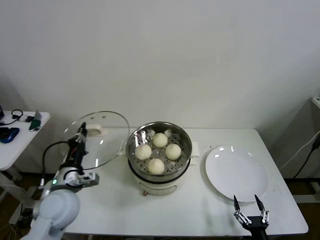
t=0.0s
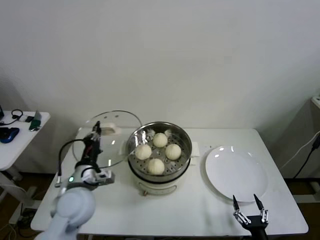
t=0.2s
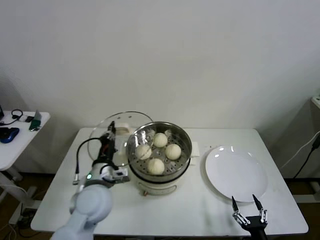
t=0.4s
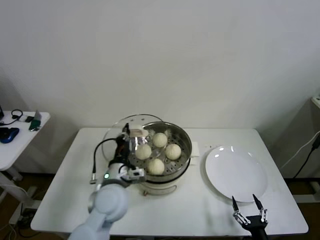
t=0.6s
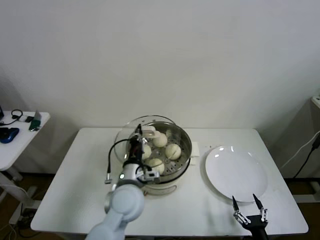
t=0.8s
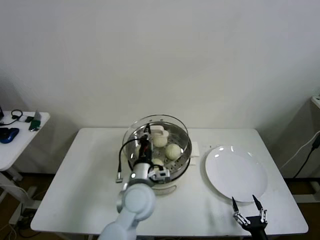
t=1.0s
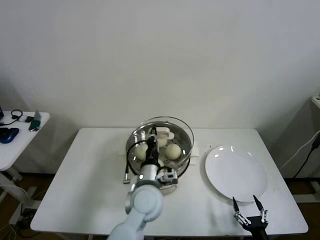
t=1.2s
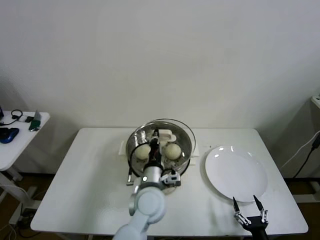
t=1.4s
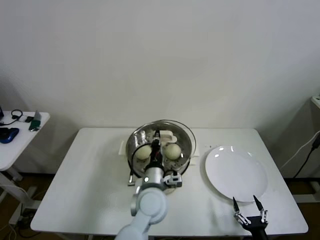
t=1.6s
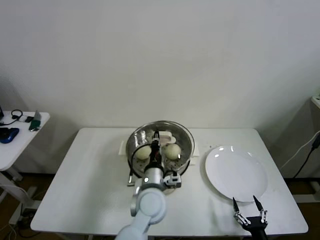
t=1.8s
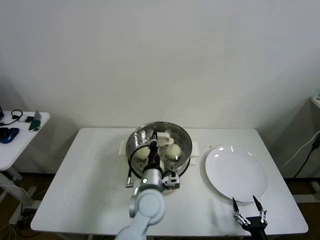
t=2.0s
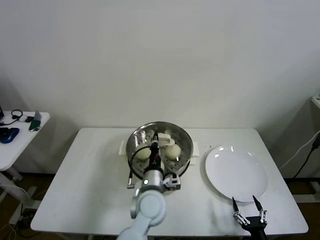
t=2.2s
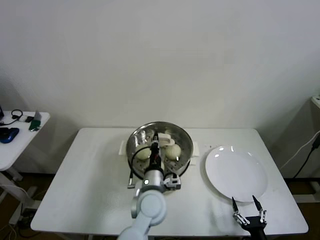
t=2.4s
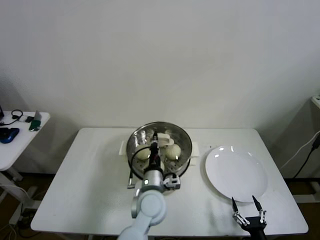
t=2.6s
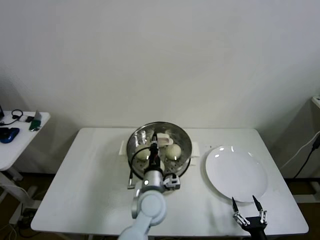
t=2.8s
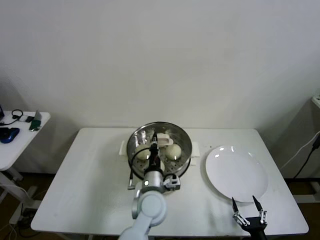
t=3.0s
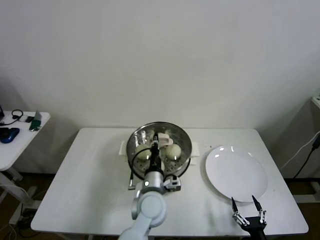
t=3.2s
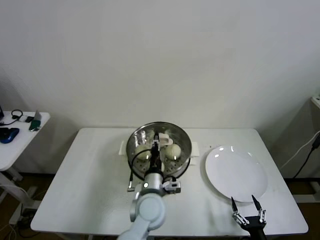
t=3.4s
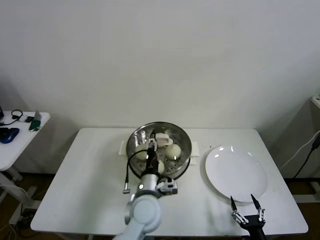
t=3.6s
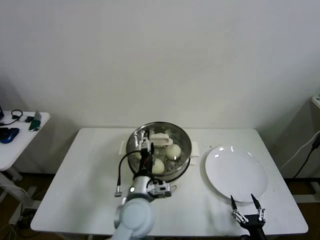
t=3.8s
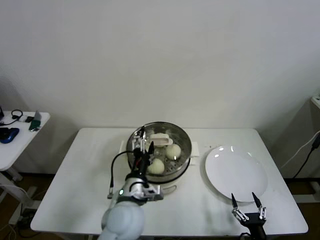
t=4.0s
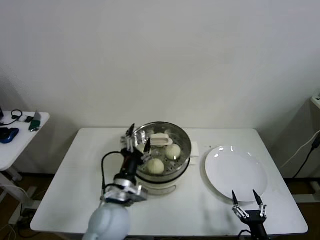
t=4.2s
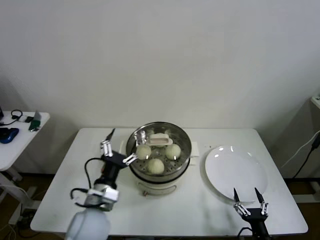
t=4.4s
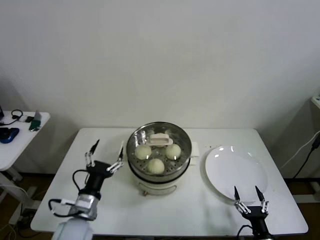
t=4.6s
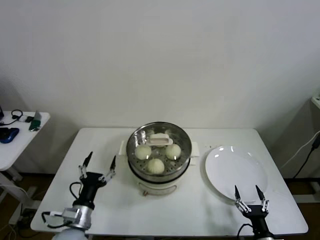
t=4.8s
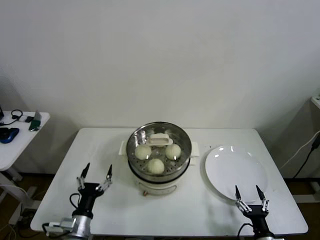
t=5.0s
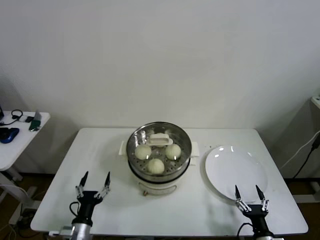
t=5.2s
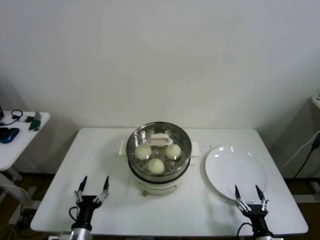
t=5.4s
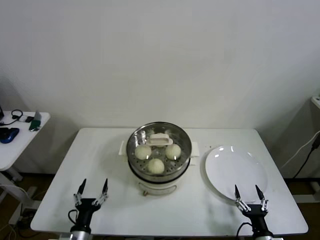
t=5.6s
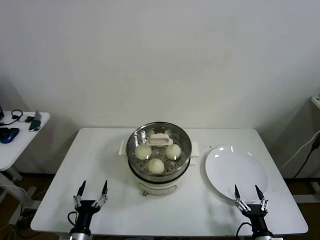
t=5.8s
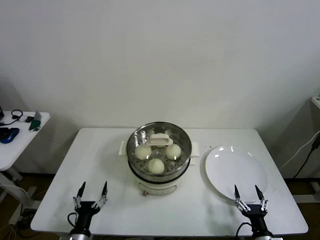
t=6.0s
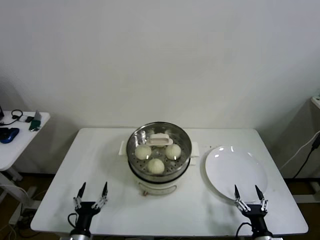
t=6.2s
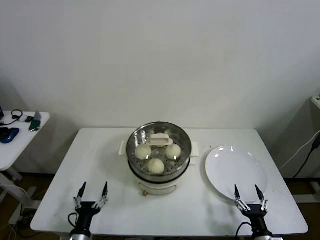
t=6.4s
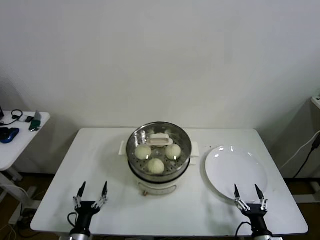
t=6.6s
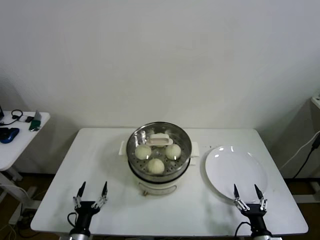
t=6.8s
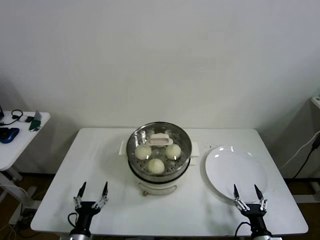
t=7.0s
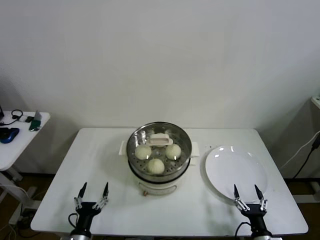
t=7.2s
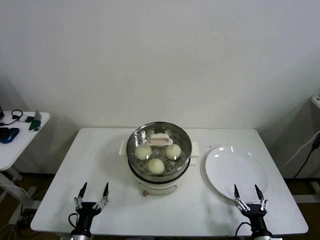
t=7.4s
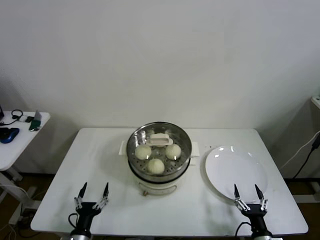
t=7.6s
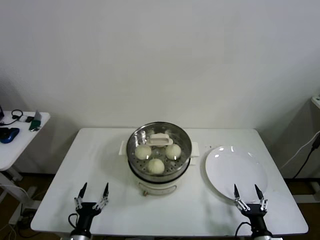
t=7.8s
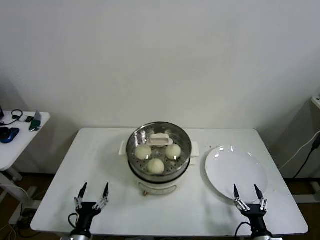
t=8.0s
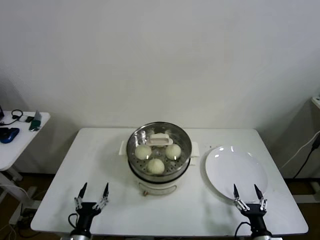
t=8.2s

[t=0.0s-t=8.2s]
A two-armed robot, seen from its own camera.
Step, t=0.0s to t=3.2s: Place the pot lid on the steamer with left gripper.
t=0.0s to t=1.6s: The left gripper goes some 25 cm to the right.
t=1.6s to t=3.2s: The grippers move only a little.
t=3.2s to t=5.0s: The left gripper travels to the left and backward by about 25 cm, and opens.
t=5.0s to t=6.6s: The left gripper is displaced downward by roughly 5 cm.
t=6.6s to t=8.2s: The two grippers keep their place.

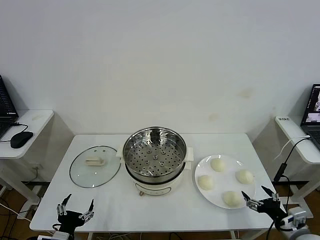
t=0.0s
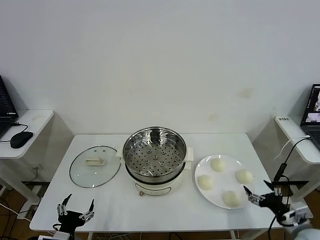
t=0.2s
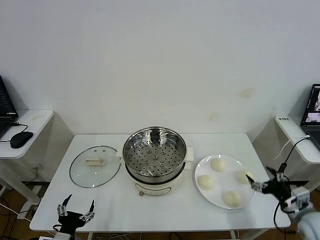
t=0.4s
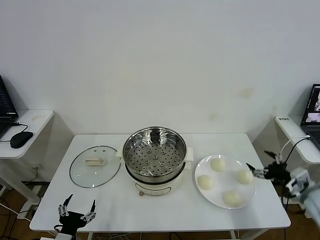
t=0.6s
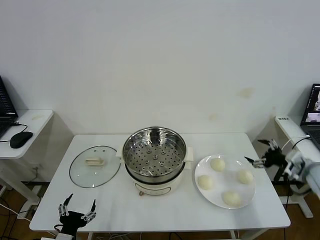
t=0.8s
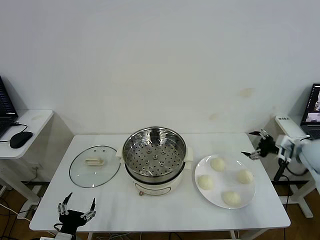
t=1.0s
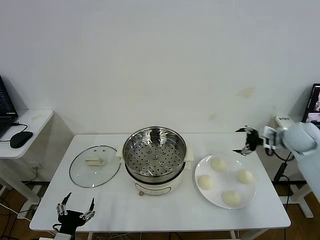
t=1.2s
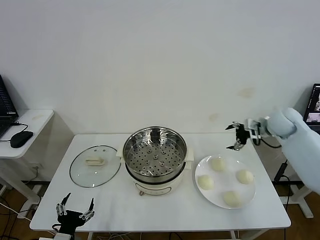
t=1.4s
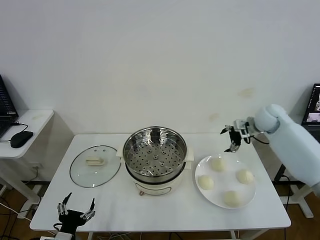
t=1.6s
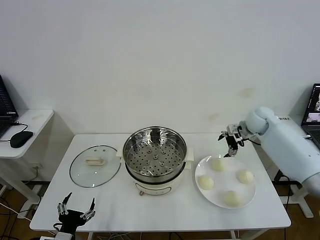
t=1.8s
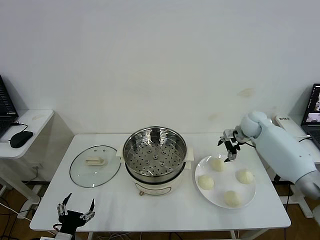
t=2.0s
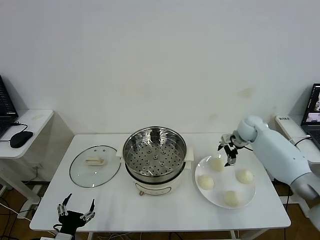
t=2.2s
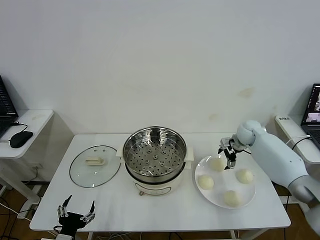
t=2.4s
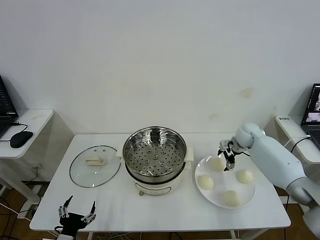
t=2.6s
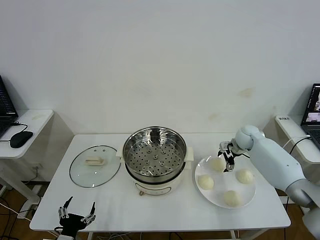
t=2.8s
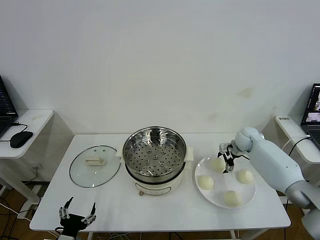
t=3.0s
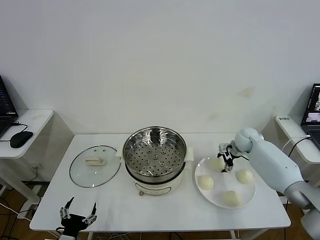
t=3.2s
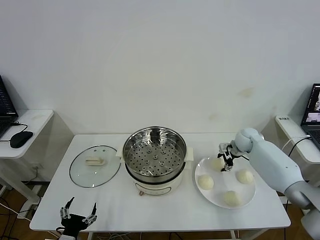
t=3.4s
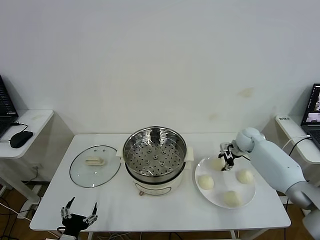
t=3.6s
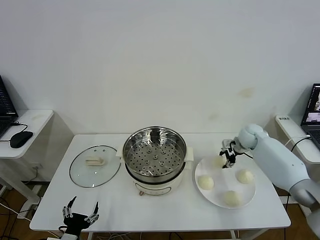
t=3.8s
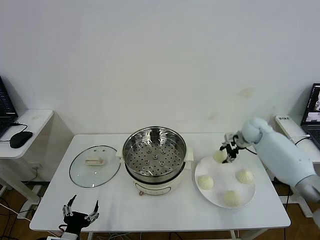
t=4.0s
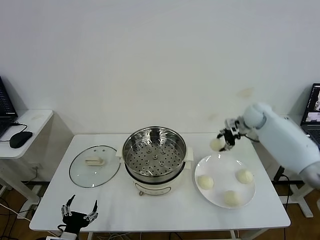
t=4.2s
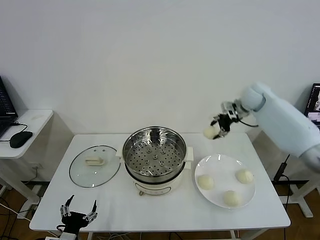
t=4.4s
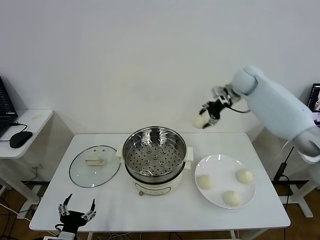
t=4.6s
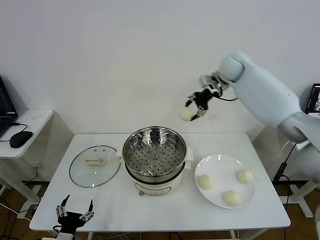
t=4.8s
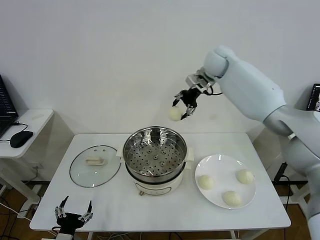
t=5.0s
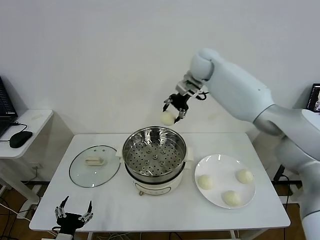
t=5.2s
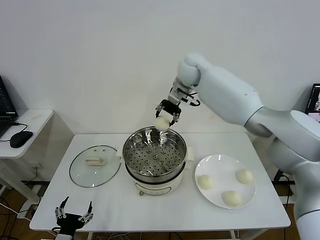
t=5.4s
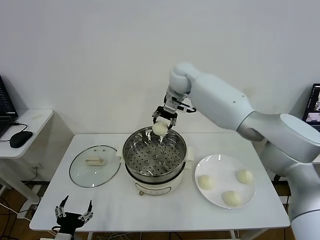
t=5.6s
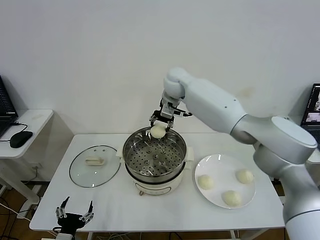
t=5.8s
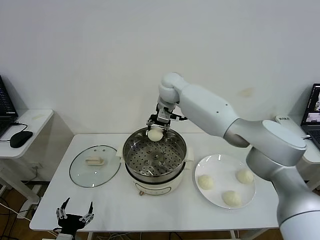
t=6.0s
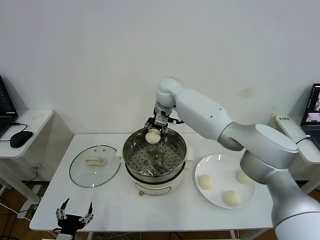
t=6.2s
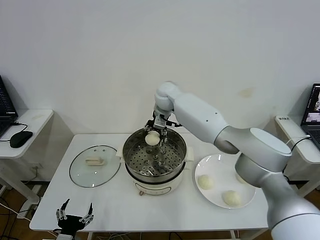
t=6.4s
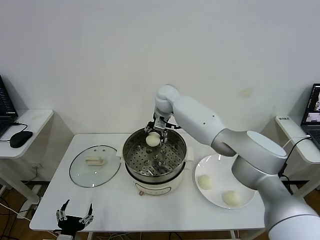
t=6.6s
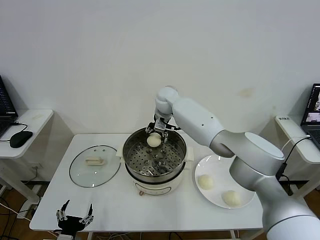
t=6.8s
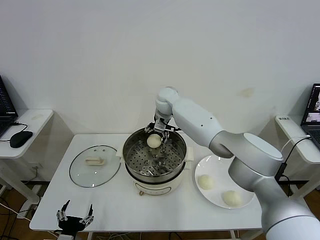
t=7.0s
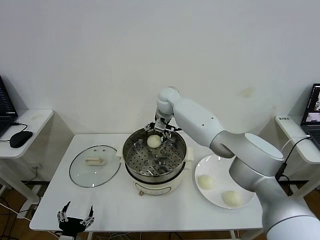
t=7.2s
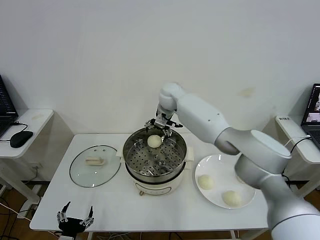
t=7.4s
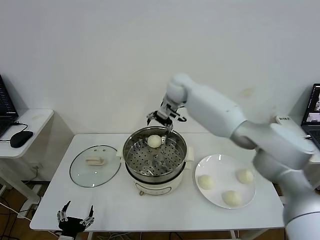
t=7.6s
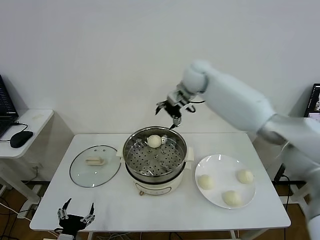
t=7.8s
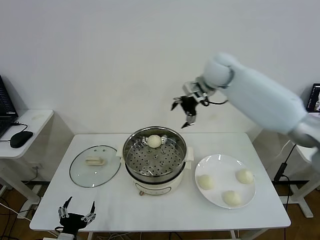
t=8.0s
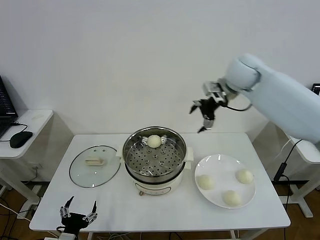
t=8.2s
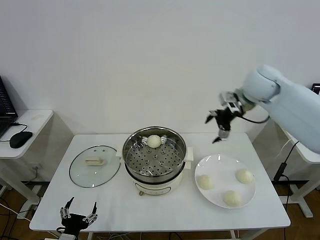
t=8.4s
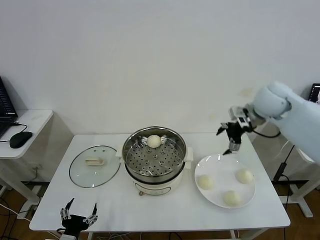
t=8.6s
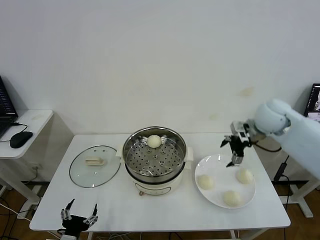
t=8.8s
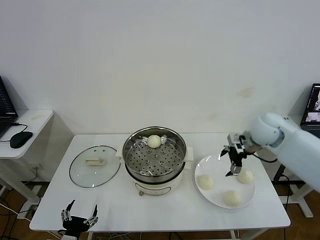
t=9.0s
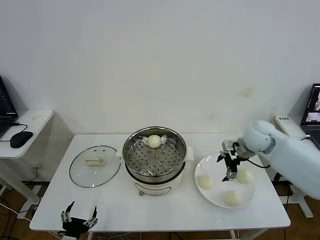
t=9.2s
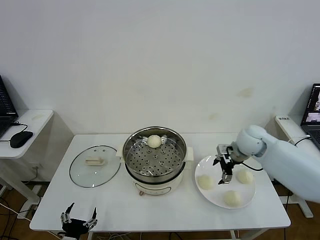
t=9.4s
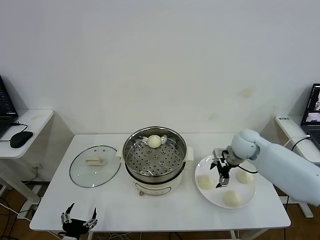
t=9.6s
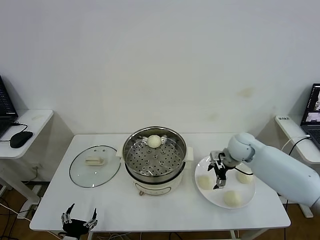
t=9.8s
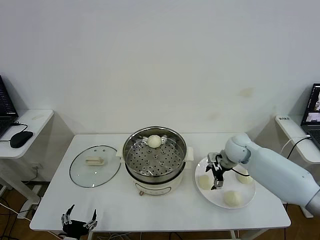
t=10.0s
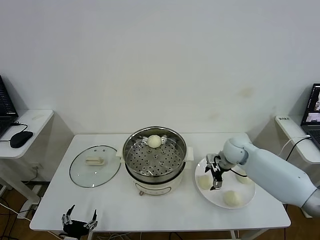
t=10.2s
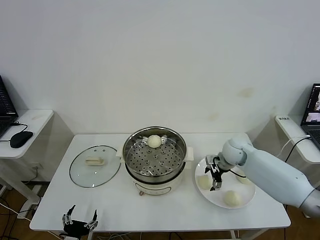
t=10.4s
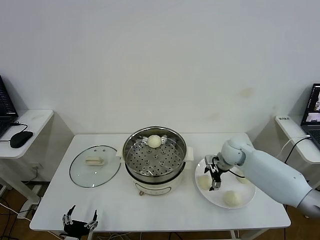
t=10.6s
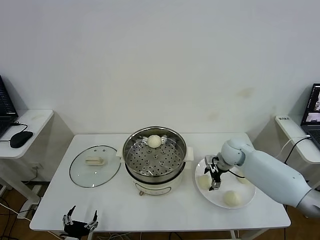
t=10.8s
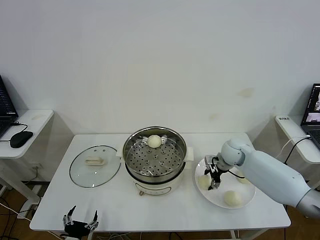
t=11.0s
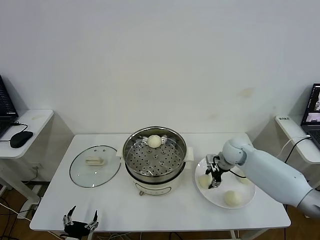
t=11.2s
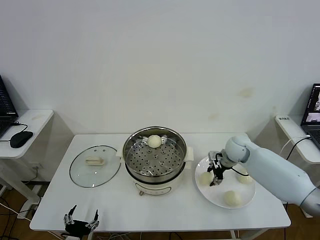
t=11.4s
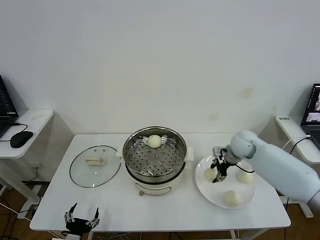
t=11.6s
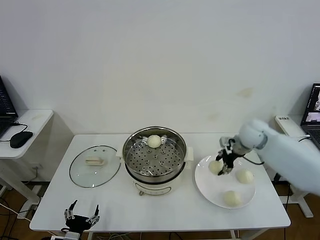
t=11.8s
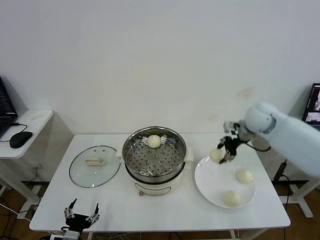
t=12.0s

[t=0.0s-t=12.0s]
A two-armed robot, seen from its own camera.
Step, t=0.0s to t=3.2s: Grasp the baozi in the plate with right gripper.
Step, t=3.6s to t=7.0s: Place the baozi on the steamer with right gripper.
Step, t=7.2s to t=11.0s: Grasp the baozi in the plate with right gripper.
t=1.6s to t=3.0s: The right gripper heads downward, covering some 10 cm.
t=3.0s to t=4.4s: The right gripper moves upward, roughly 20 cm, and closes.
t=4.4s to t=6.0s: The right gripper goes roughly 30 cm to the left.
t=6.0s to t=7.6s: The right gripper shifts approximately 5 cm to the right, and opens its fingers.
t=7.6s to t=9.0s: The right gripper is displaced to the right, backward and downward by roughly 30 cm.
t=9.0s to t=10.4s: The right gripper moves downward, some 10 cm.
t=10.4s to t=12.0s: The right gripper shifts approximately 20 cm upward, and closes up.

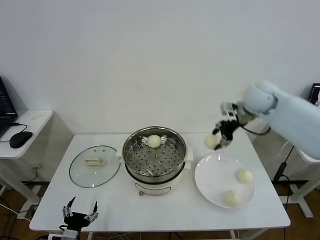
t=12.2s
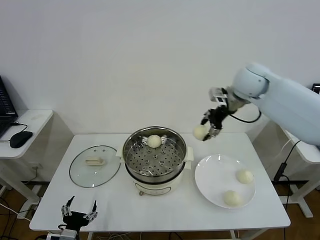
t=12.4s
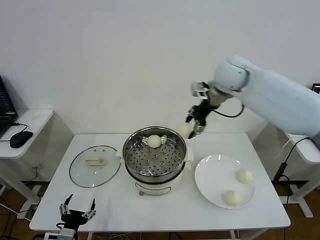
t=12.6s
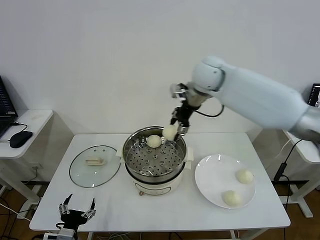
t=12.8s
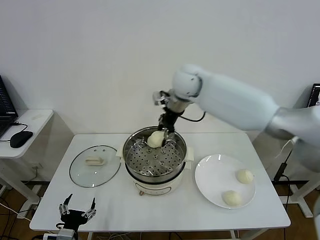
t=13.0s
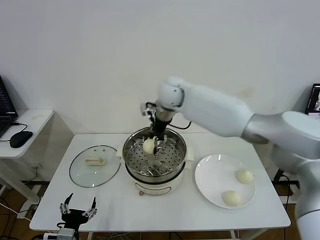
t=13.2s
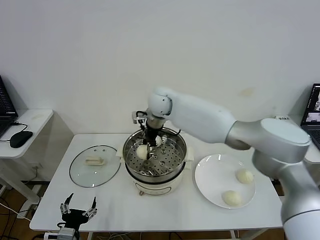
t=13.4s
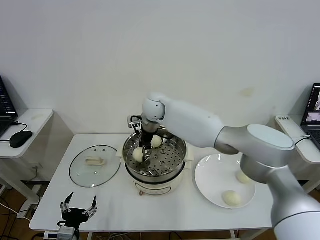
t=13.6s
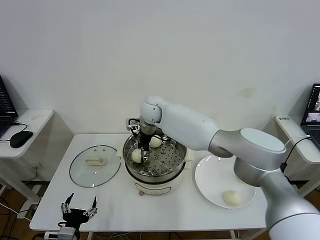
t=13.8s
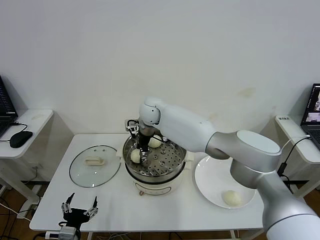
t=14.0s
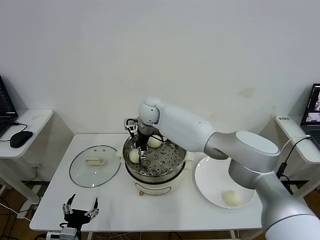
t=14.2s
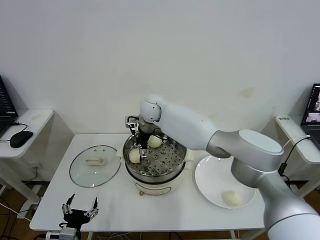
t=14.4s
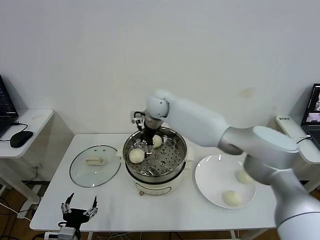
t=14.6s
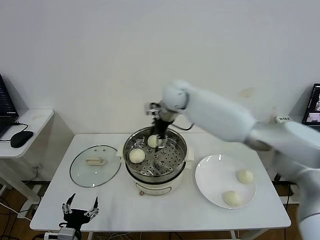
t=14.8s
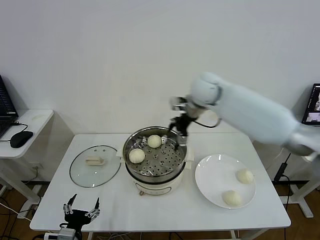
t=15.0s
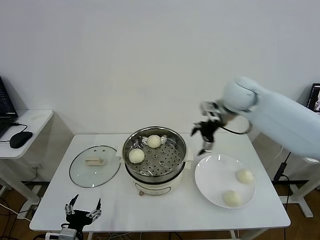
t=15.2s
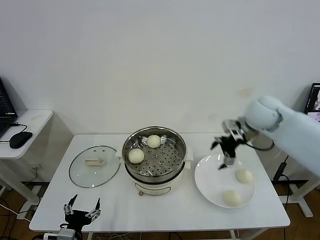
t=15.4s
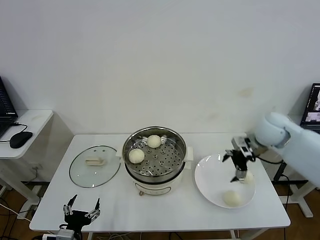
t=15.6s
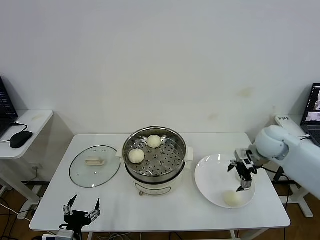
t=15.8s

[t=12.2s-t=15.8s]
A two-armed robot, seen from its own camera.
Step, t=12.2s to t=14.2s: Place the baozi on the steamer with right gripper.
t=12.2s to t=14.0s: The right gripper shifts about 30 cm to the left.
t=14.0s to t=15.8s: The right gripper moves to the right, roughly 40 cm, and opens up.
